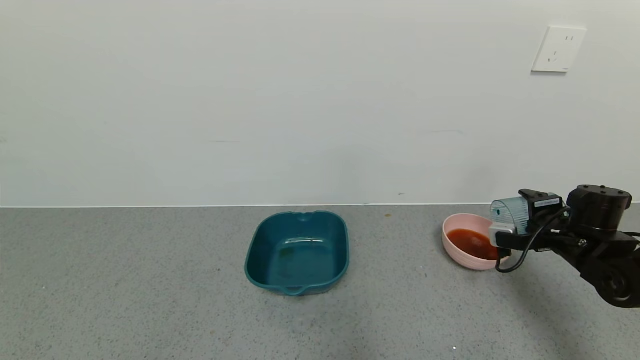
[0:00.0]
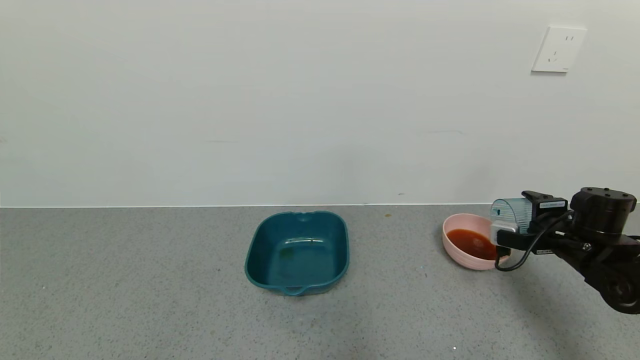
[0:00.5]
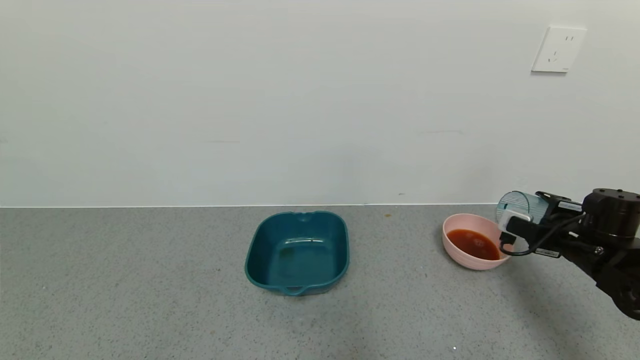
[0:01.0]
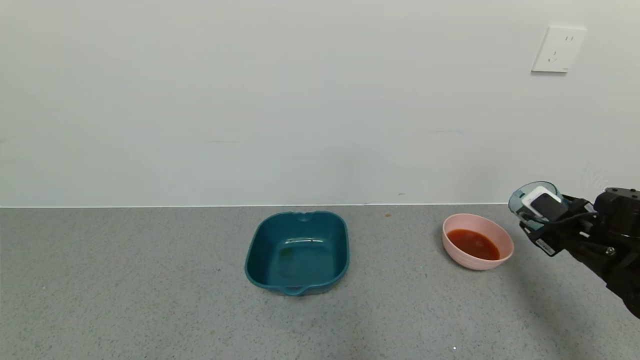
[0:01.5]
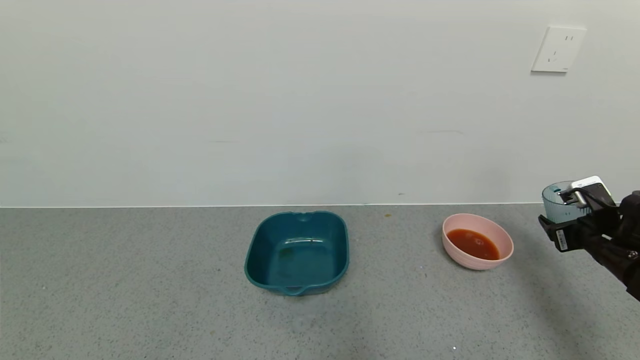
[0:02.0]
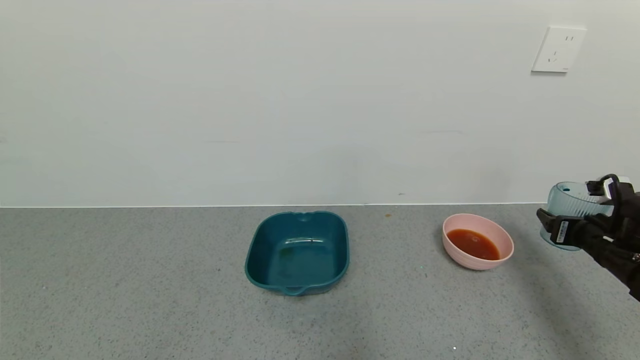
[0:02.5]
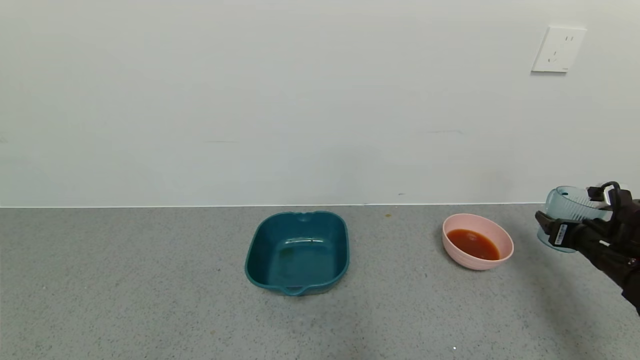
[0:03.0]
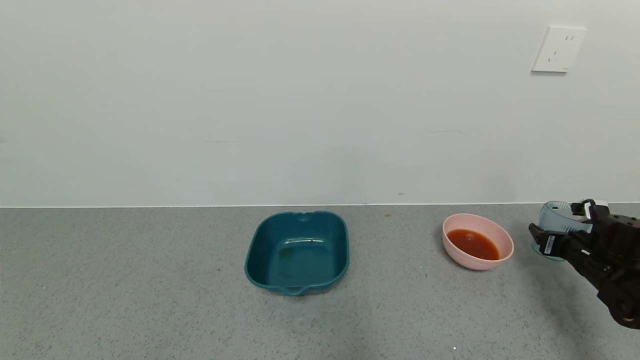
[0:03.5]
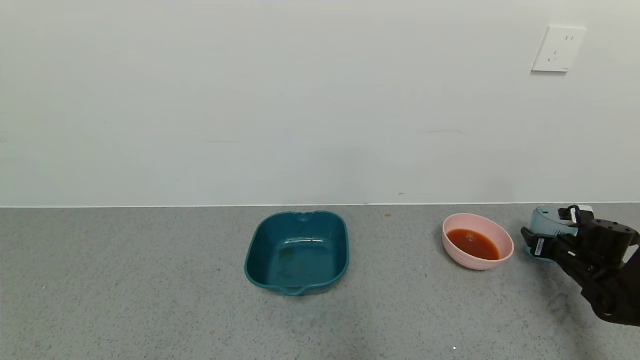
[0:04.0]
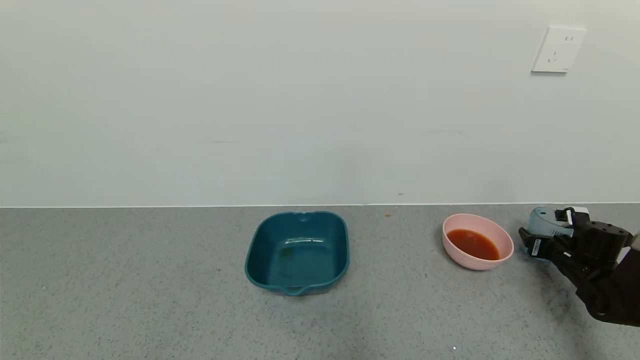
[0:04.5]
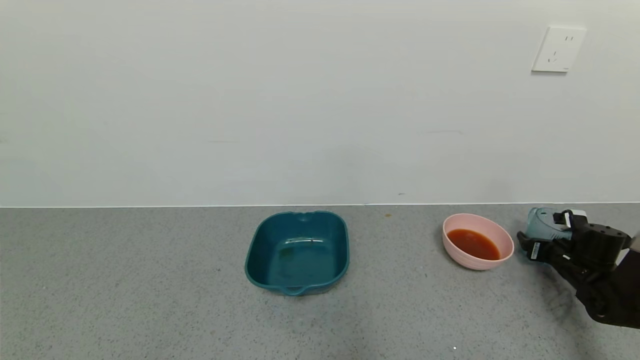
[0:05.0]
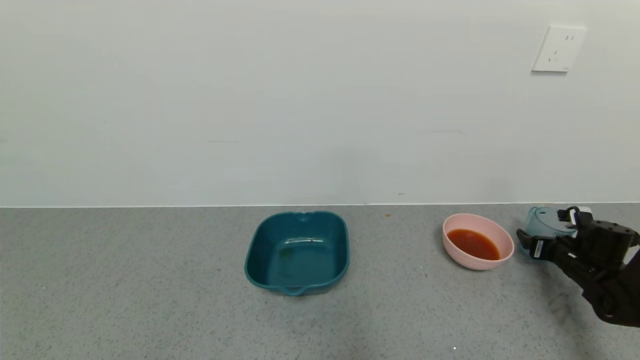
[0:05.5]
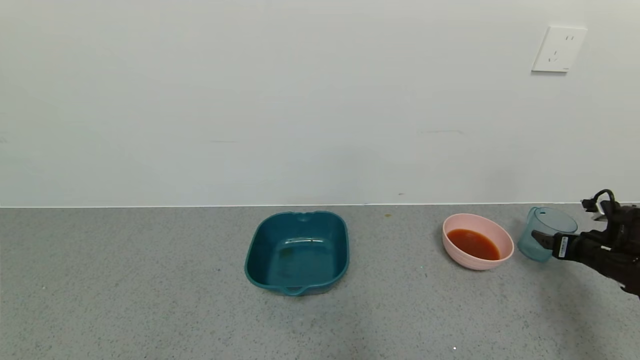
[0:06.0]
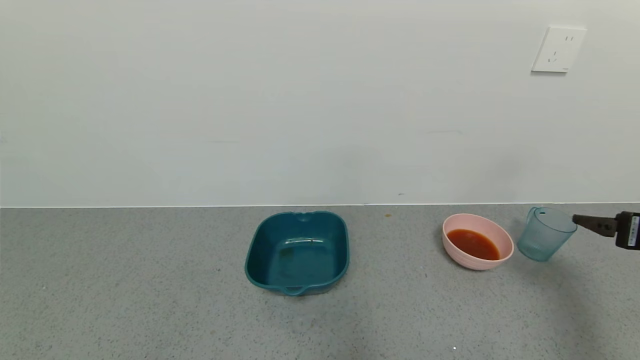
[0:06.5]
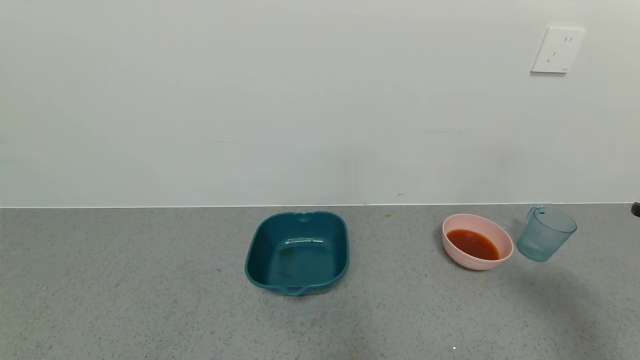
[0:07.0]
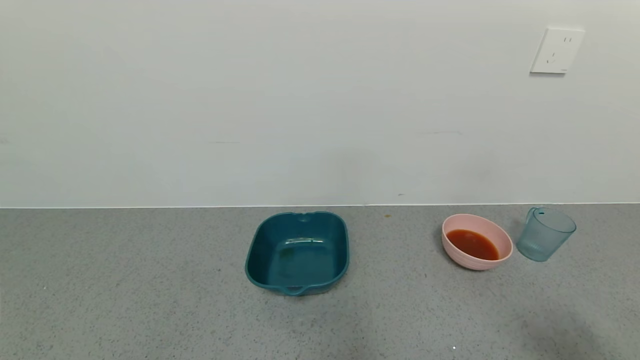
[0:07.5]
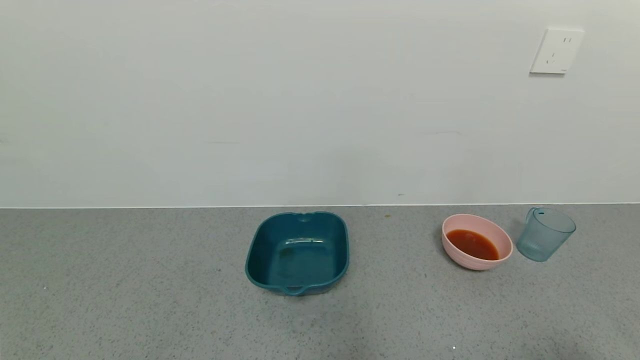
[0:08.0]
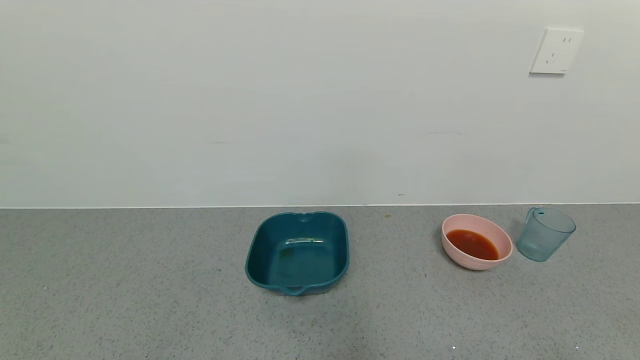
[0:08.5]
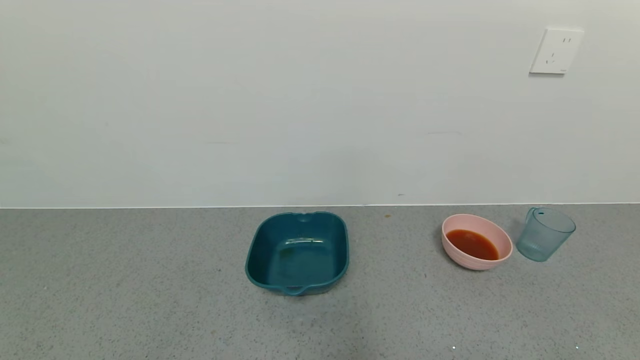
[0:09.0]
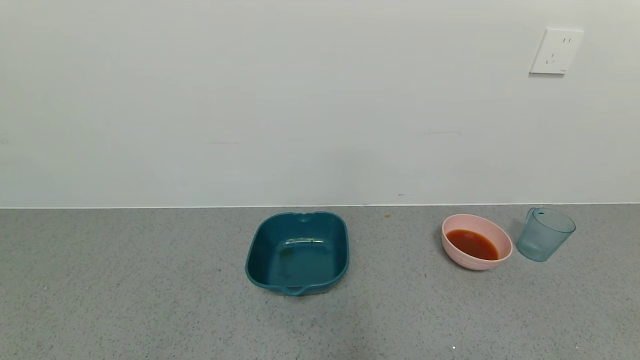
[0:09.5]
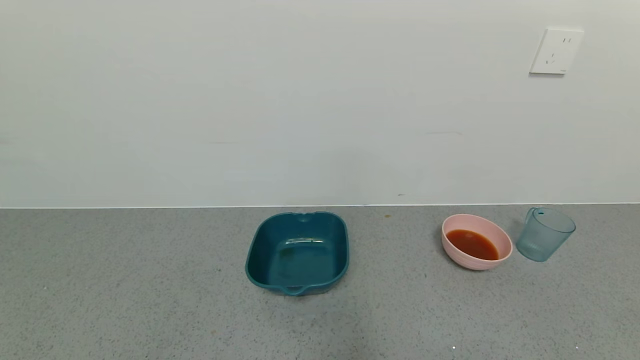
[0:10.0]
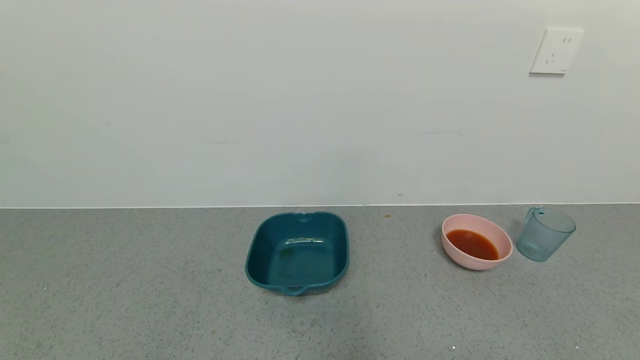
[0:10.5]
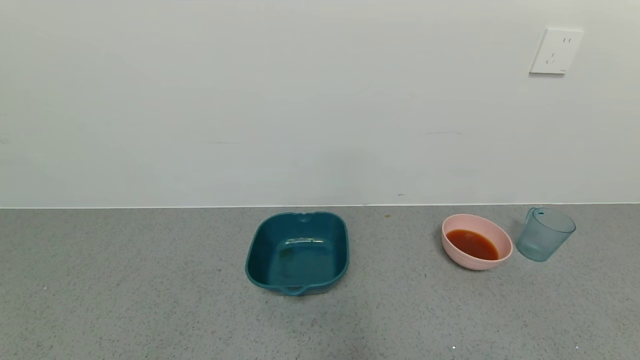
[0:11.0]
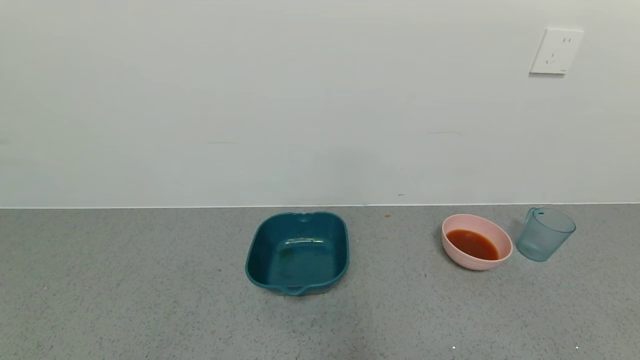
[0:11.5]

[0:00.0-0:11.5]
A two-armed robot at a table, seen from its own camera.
Task of the whole recording: use a gripper to pick up the cup and pour the liquid into a bowl or tray.
Step, 0:01.5 to 0:05.5: Place blue cup with tea on the table with right gripper.
0:00.0 to 0:02.0: The right gripper changes place by about 5 cm.
0:02.0 to 0:04.0: The right gripper moves downward and forward, some 10 cm.
0:04.0 to 0:06.0: The right gripper moves upward, roughly 5 cm, and opens up.
0:06.0 to 0:07.5: The right gripper is displaced backward and upward by approximately 30 cm.
0:07.5 to 0:09.5: The right gripper shifts approximately 10 cm backward and downward.

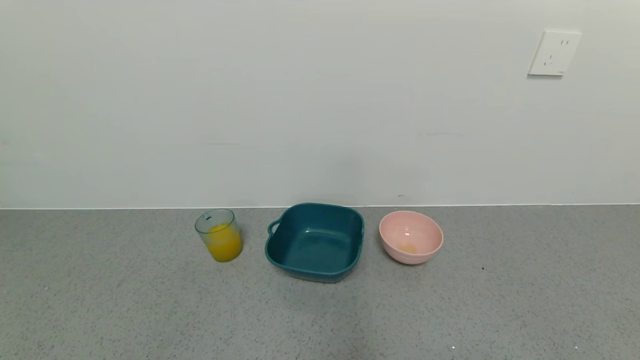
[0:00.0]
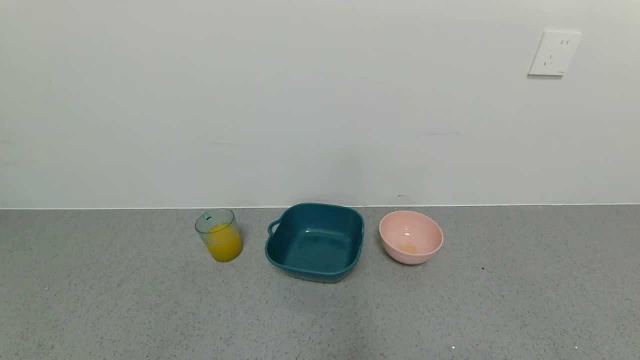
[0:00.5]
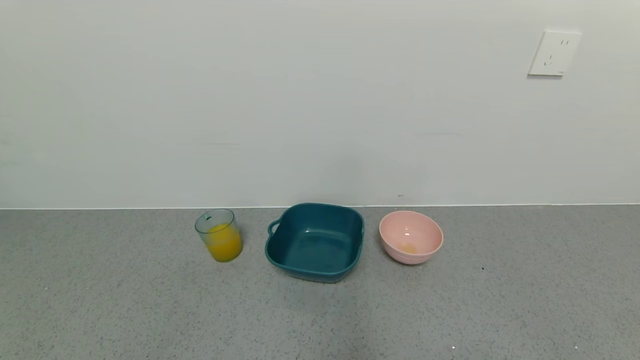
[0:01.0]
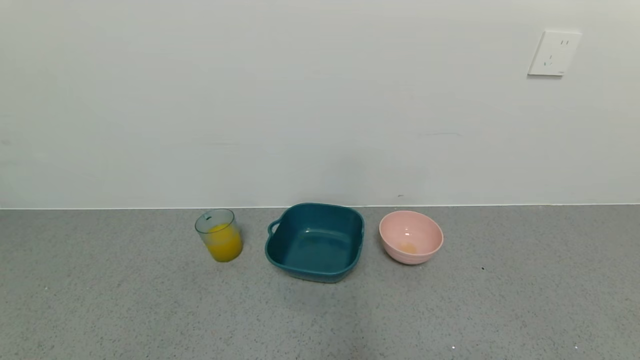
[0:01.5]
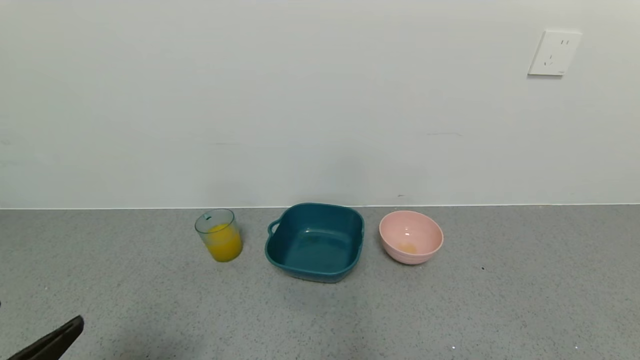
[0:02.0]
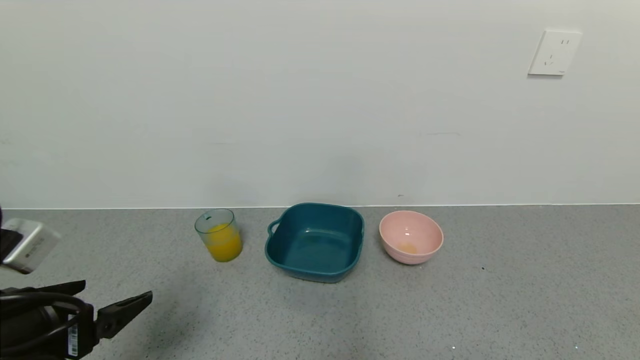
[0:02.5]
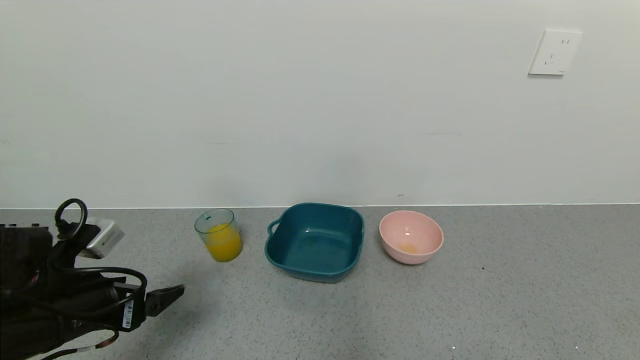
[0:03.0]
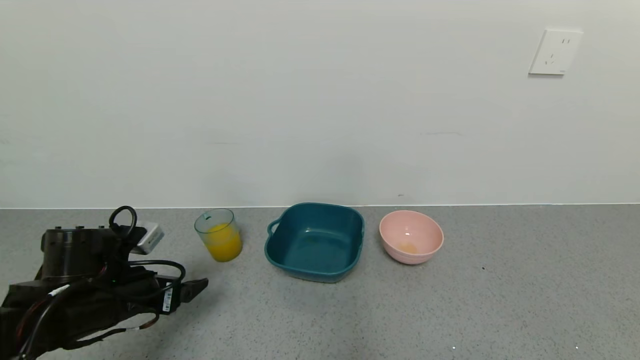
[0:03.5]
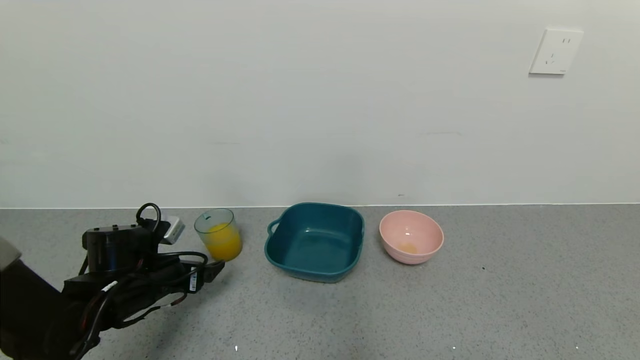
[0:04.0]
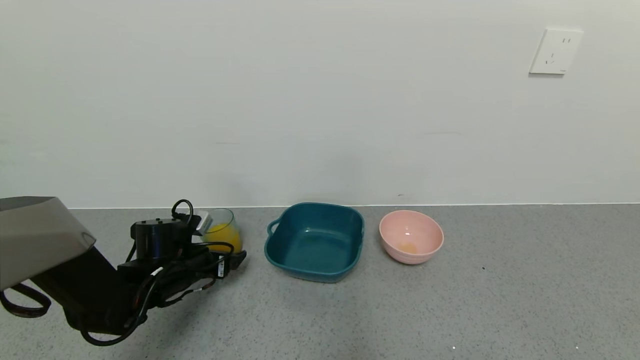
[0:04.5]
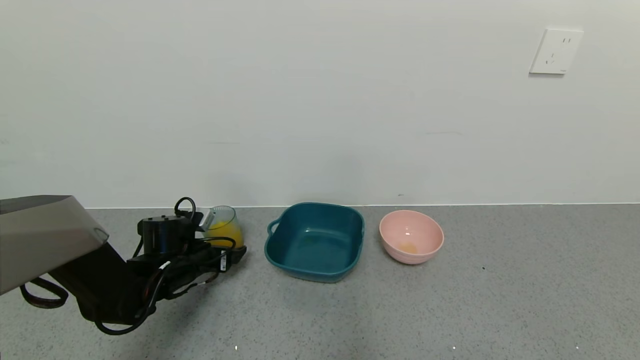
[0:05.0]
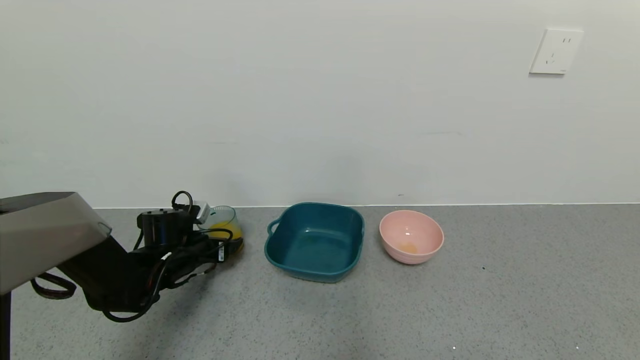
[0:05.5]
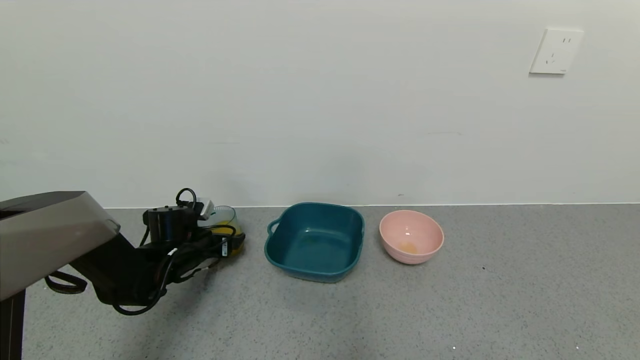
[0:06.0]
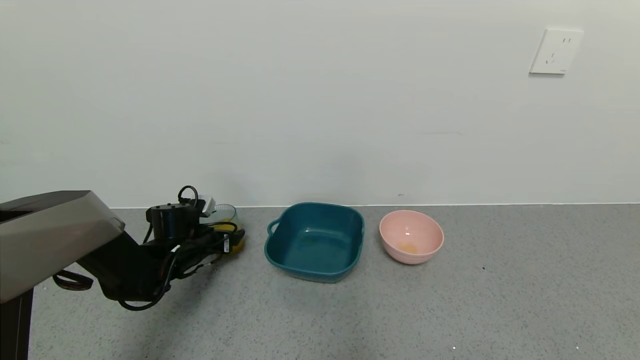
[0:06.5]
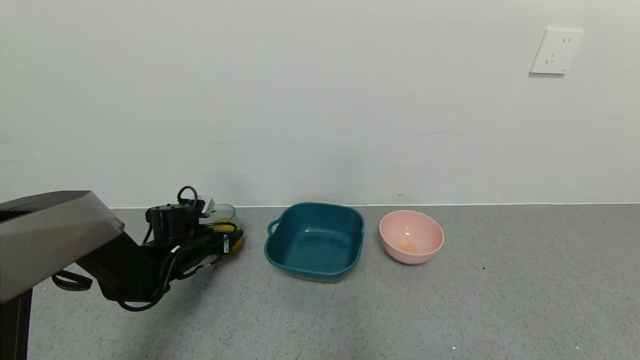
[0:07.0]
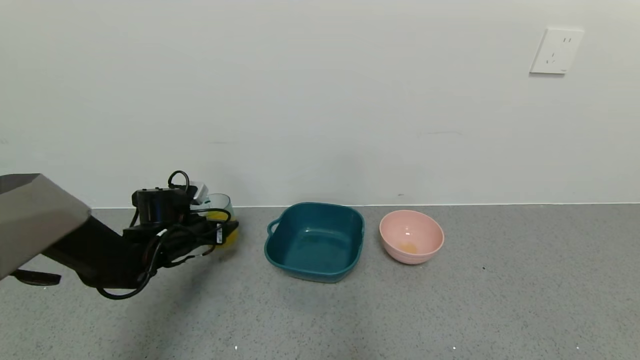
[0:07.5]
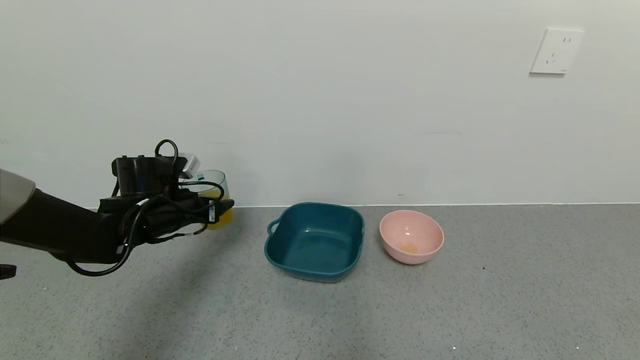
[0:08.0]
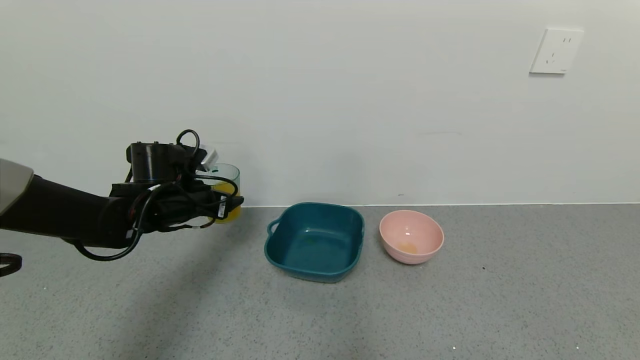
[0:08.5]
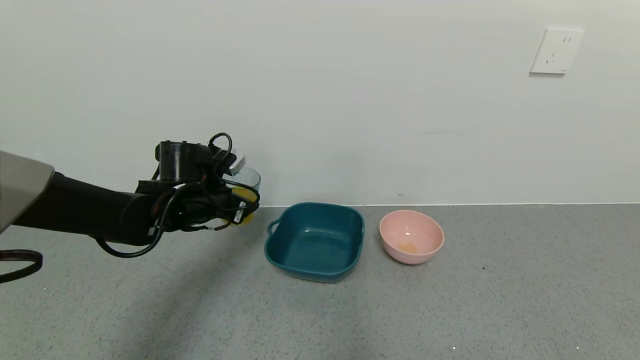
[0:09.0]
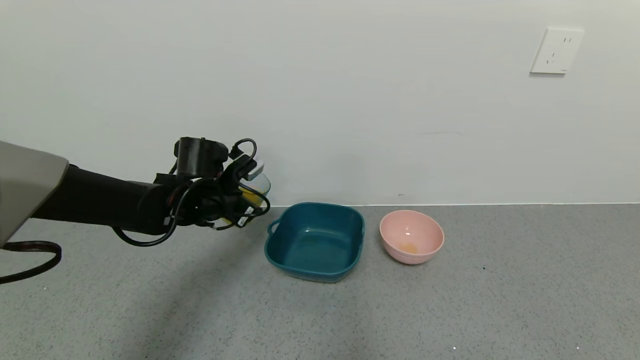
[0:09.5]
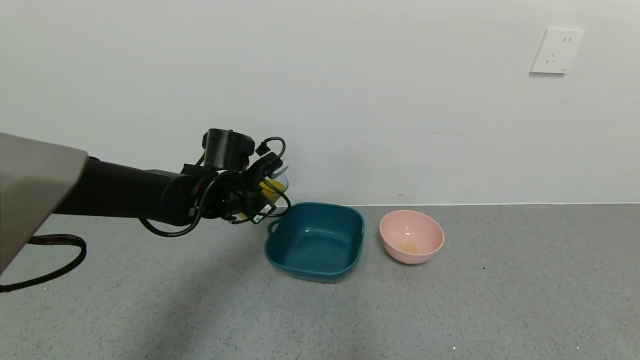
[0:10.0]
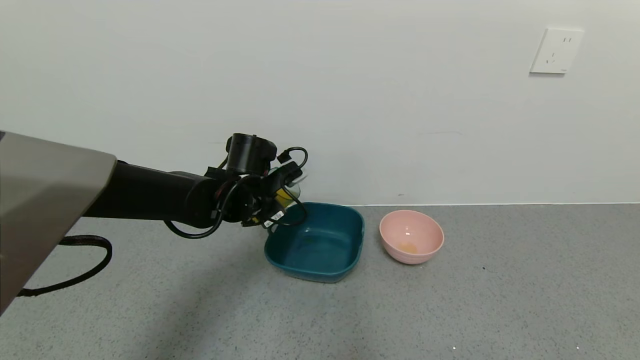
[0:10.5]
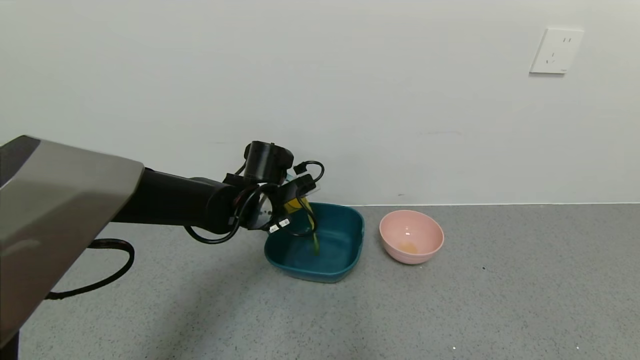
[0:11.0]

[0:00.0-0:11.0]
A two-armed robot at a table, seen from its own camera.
Task of the whole recording: use a gripper to pick up the cup and pour the liquid into a bowl or tray.
Step, 0:00.0 to 0:05.5: Pick up blue cup filled with orange juice with left gripper.
0:00.0 to 0:02.0: The left gripper travels upward and forward by about 15 cm.
0:02.0 to 0:03.5: The left gripper goes approximately 20 cm forward and downward.
0:03.5 to 0:05.5: The left gripper heads forward and downward, covering some 15 cm.
0:05.5 to 0:07.5: The left gripper closes up.
0:07.5 to 0:09.0: The left gripper heads upward and to the right, covering roughly 10 cm.
0:09.0 to 0:11.0: The left gripper is displaced to the right by roughly 10 cm.
